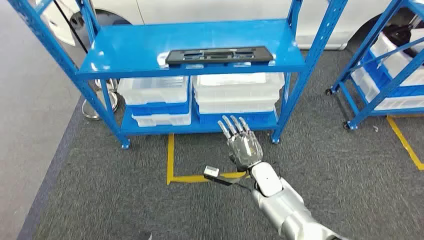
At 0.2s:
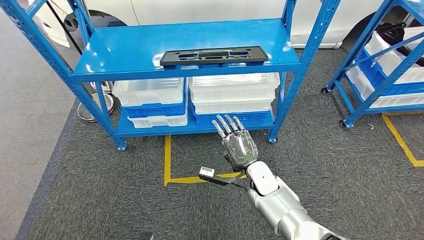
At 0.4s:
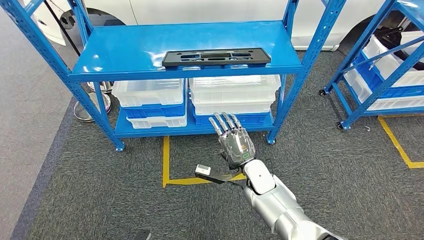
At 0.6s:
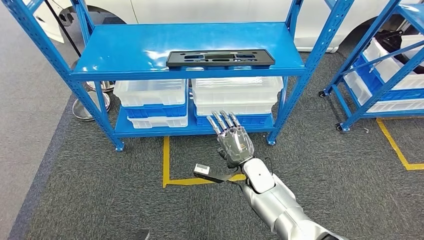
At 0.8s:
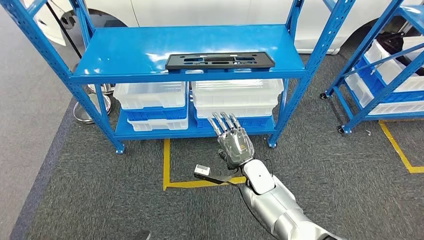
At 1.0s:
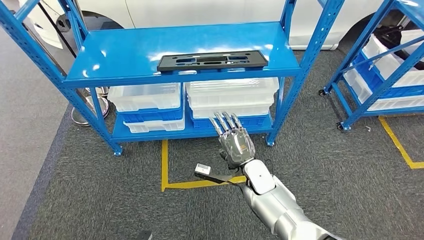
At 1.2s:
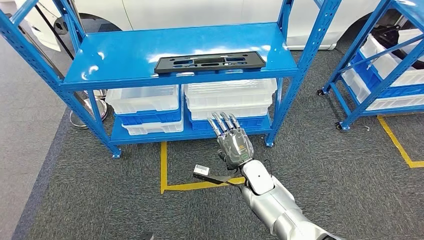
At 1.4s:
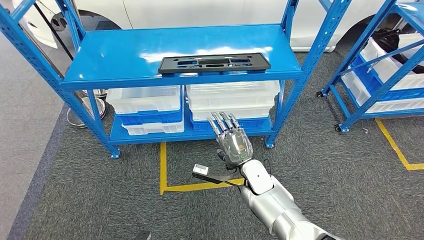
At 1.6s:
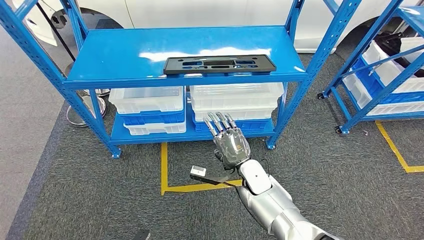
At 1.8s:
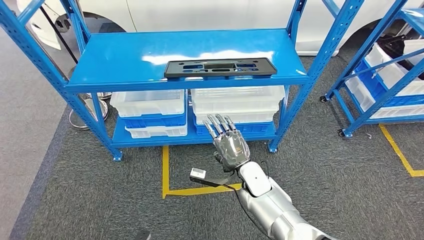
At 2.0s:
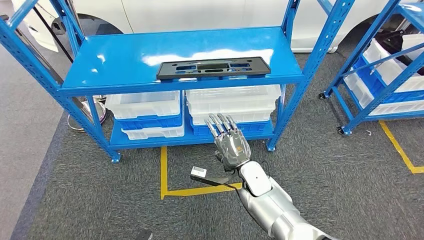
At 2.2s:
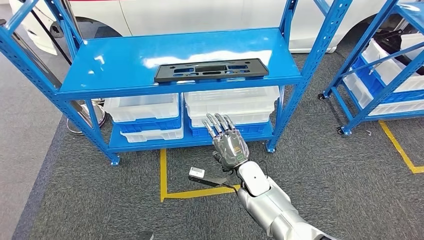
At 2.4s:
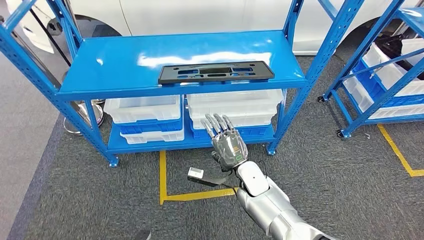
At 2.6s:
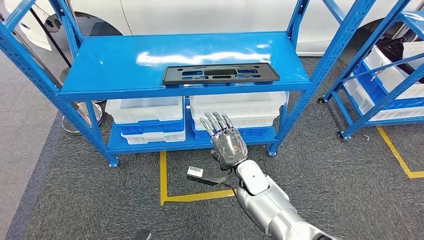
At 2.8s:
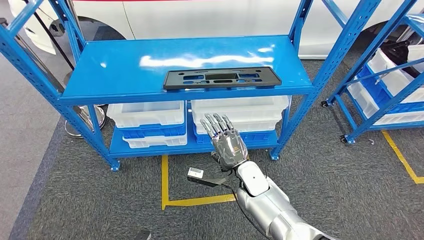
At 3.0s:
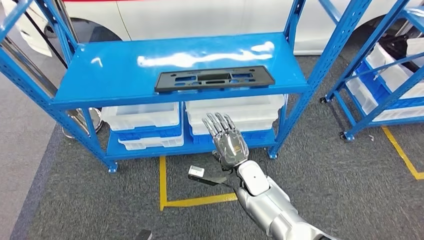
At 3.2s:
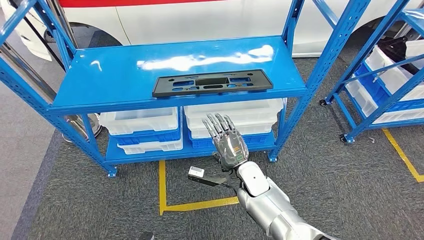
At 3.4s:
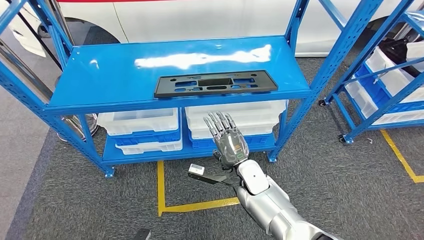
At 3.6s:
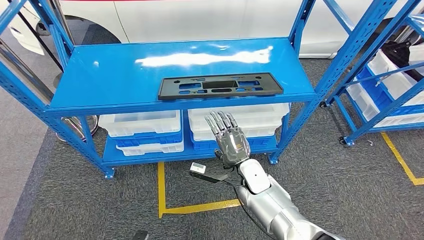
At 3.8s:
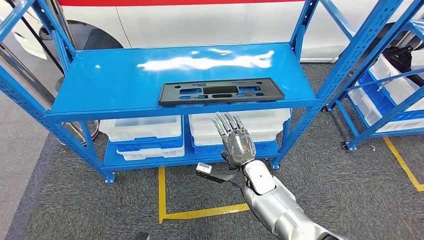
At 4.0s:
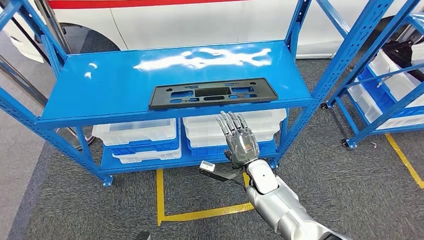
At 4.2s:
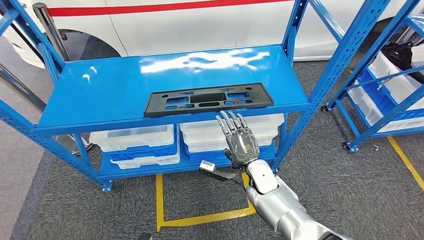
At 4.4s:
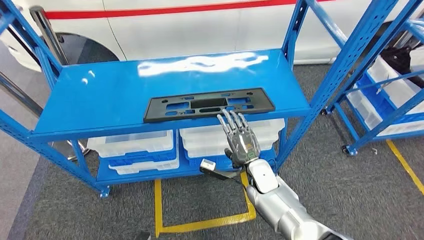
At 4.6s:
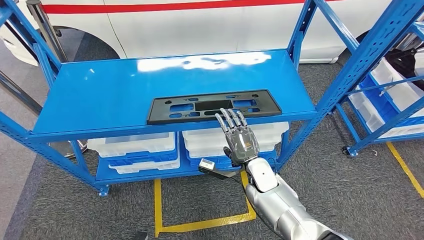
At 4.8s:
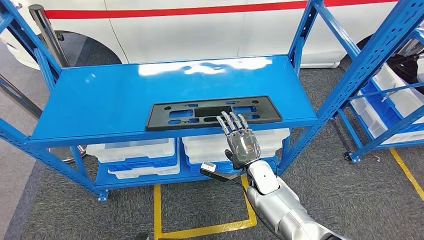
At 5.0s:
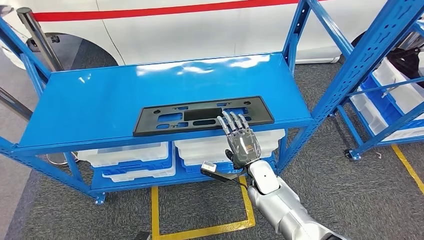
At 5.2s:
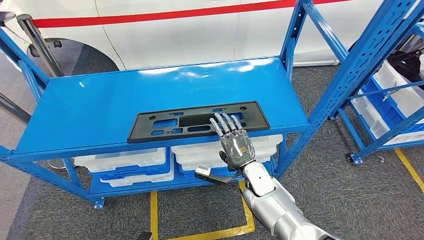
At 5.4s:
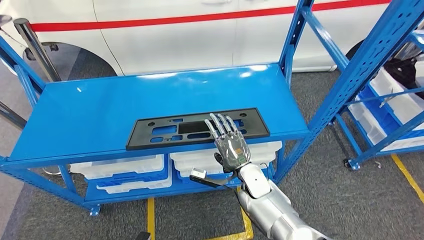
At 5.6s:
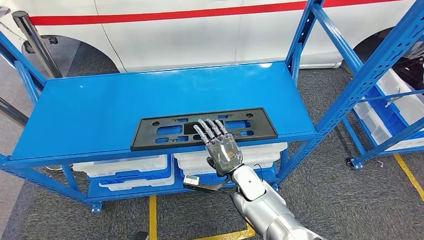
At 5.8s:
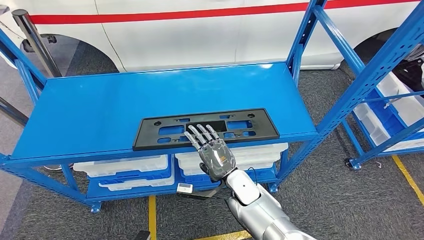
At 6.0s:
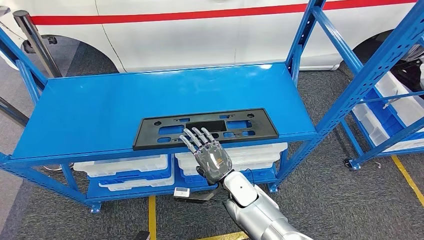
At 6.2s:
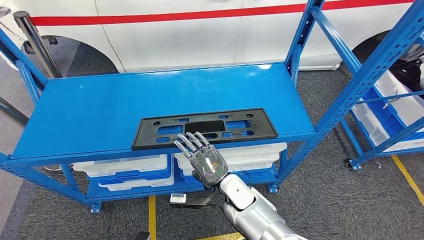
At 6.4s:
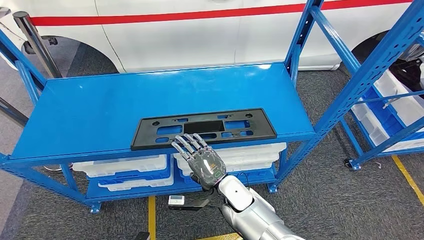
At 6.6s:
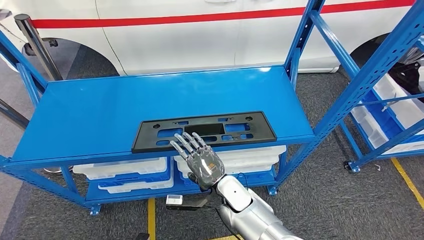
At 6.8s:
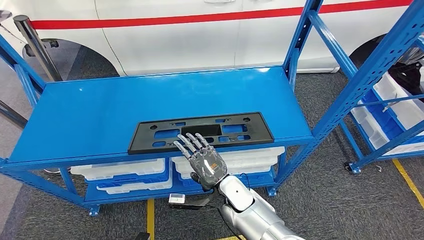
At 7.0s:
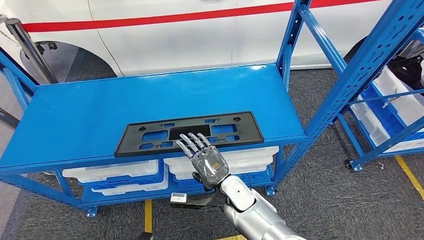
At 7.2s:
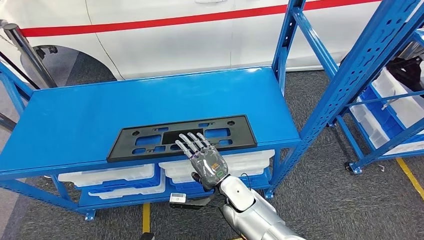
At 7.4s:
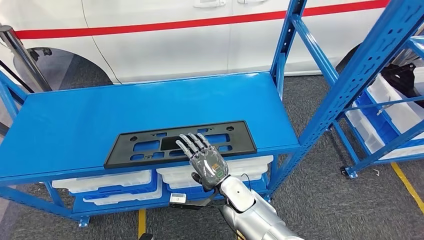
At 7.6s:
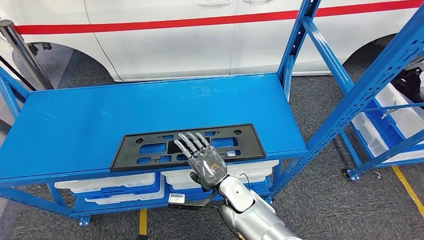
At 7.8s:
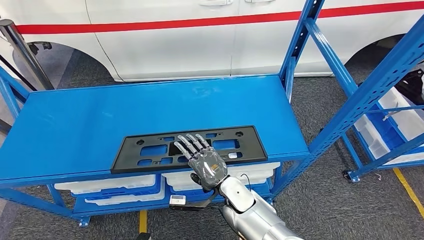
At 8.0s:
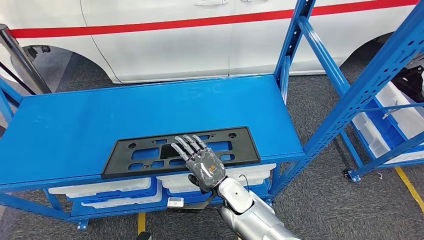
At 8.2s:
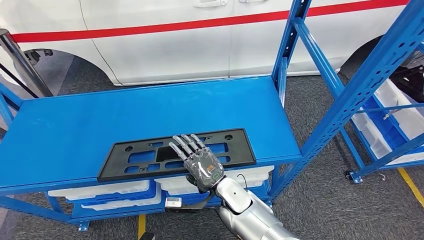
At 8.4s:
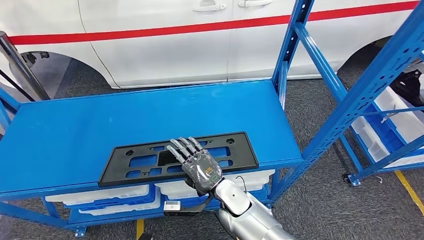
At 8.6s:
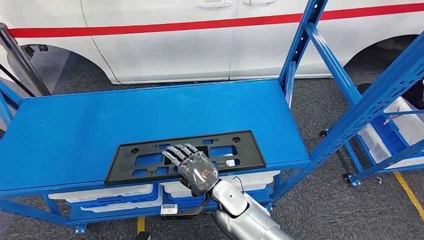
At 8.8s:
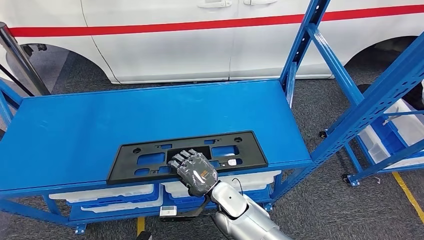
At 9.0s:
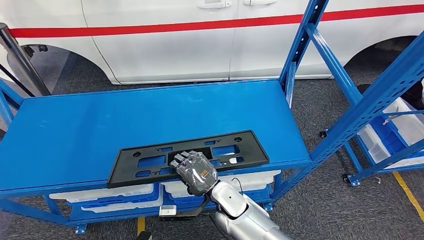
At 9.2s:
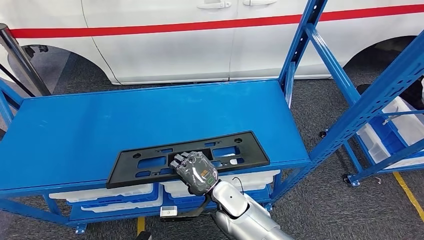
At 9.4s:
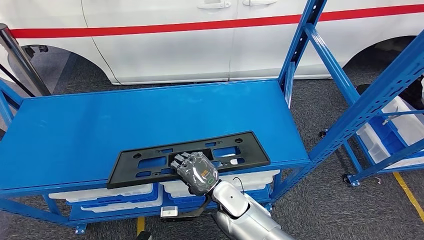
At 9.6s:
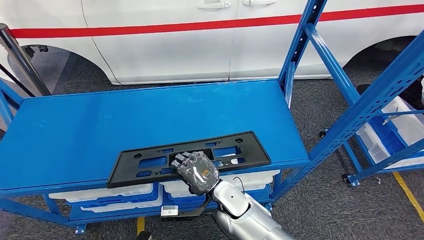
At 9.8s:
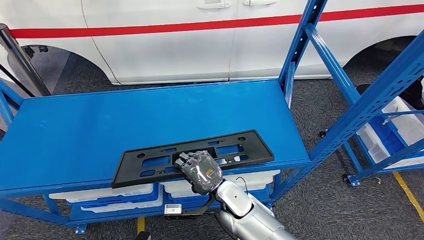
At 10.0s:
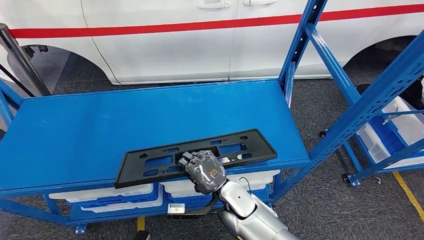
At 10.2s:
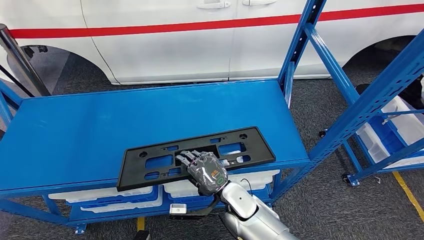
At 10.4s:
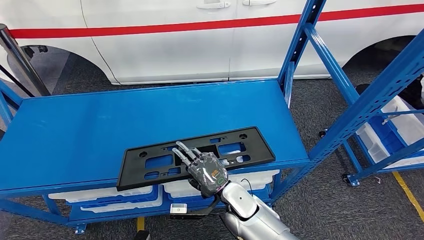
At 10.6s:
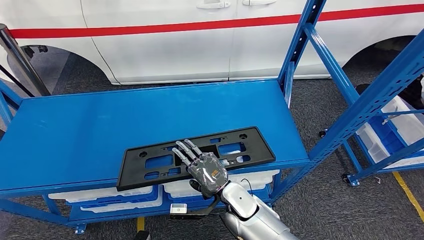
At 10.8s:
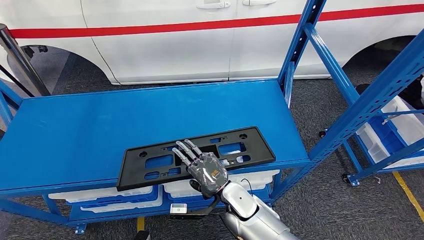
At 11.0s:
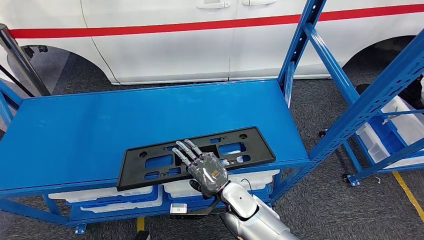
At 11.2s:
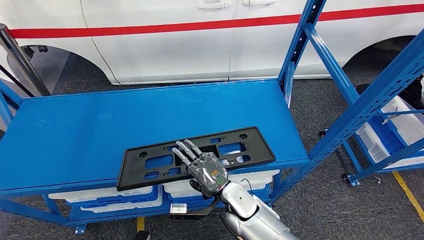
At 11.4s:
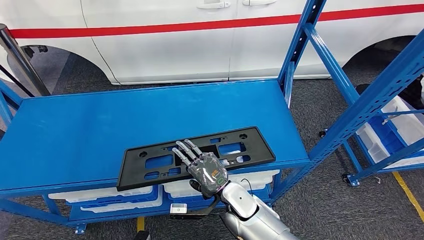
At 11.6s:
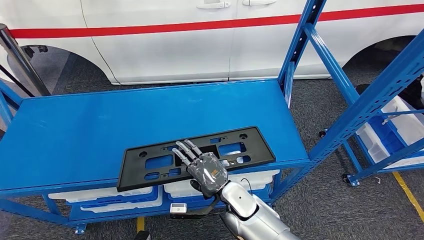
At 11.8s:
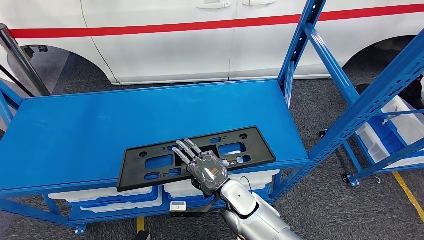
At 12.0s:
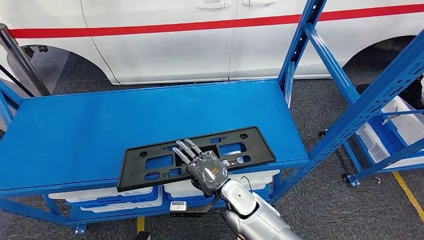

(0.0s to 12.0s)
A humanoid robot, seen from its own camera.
9.0s - 10.4s: The hands move only a little.
10.4s - 12.0s: Both hands stay about where they are.

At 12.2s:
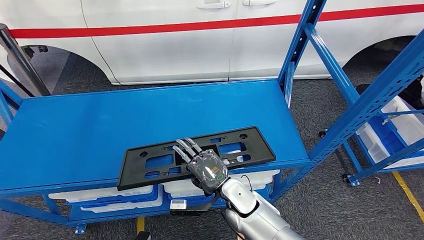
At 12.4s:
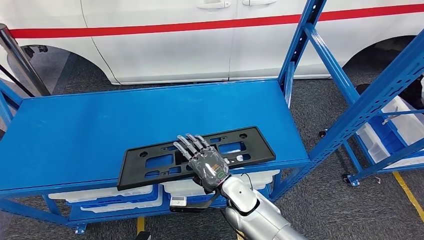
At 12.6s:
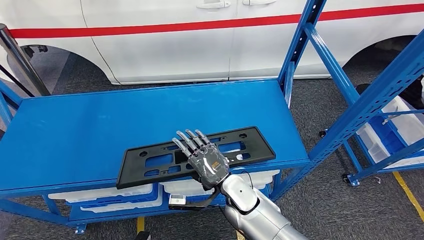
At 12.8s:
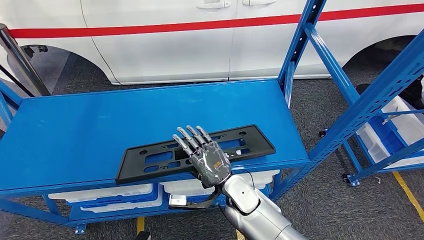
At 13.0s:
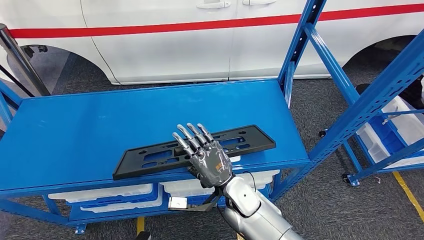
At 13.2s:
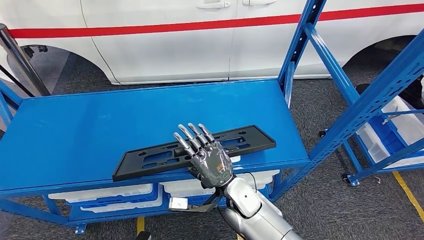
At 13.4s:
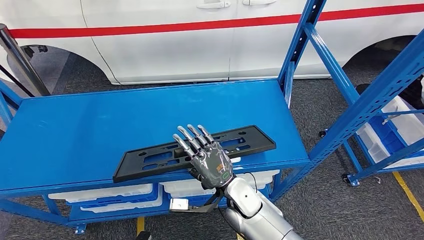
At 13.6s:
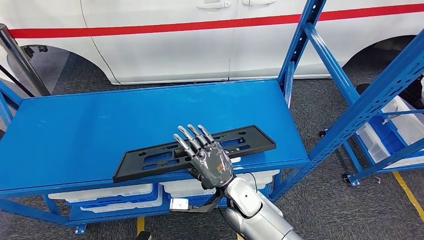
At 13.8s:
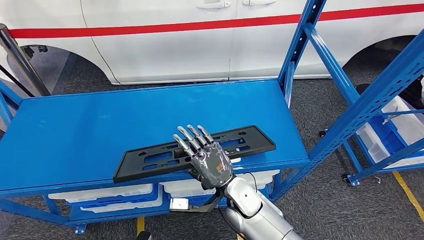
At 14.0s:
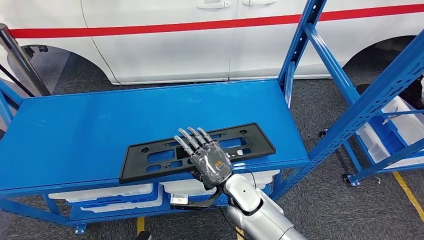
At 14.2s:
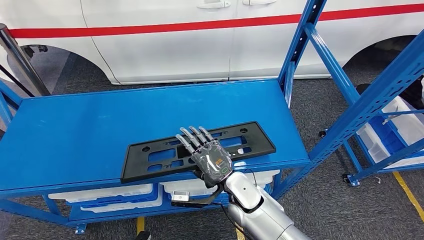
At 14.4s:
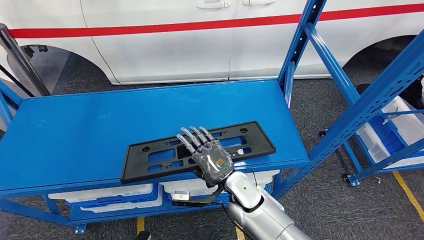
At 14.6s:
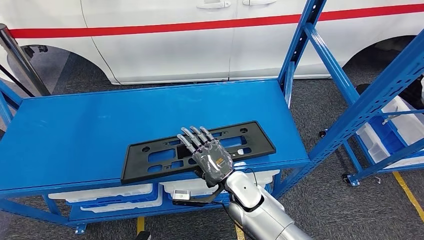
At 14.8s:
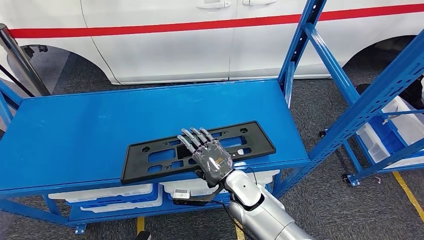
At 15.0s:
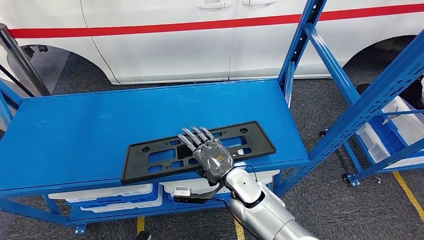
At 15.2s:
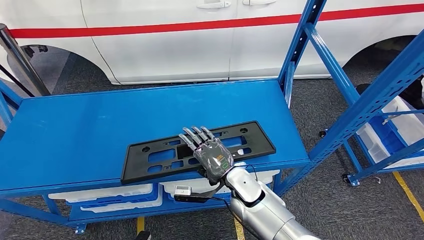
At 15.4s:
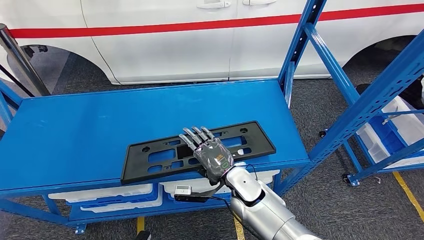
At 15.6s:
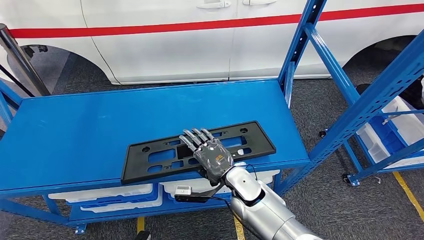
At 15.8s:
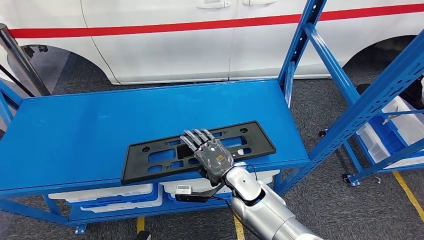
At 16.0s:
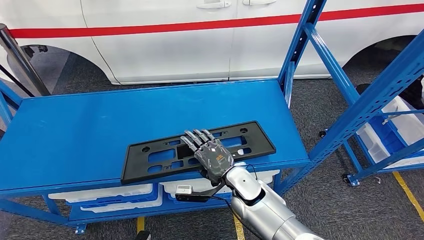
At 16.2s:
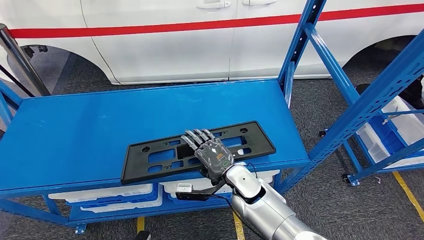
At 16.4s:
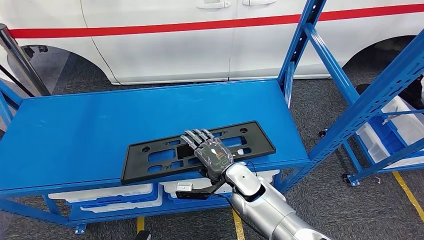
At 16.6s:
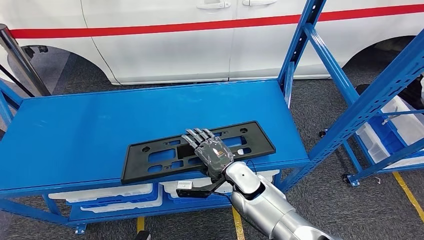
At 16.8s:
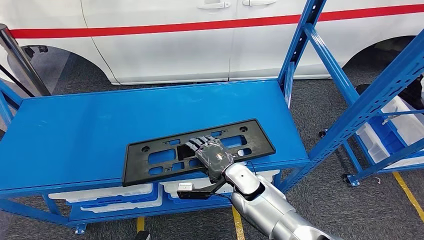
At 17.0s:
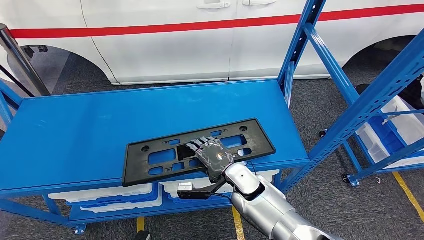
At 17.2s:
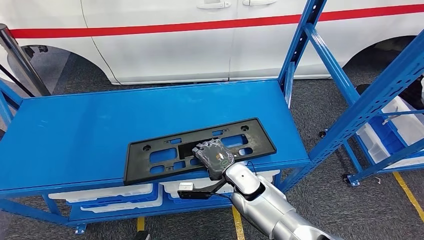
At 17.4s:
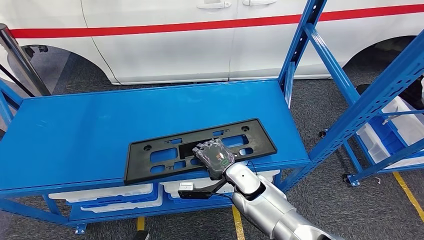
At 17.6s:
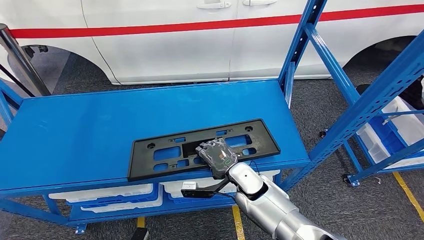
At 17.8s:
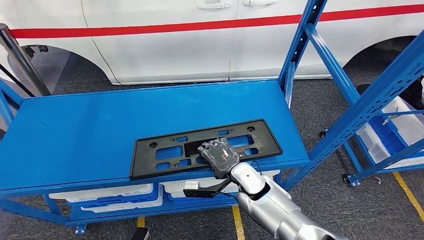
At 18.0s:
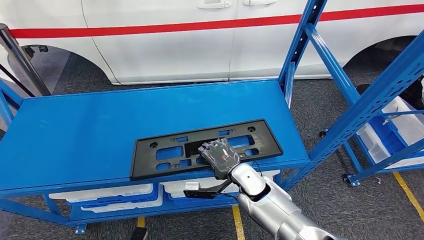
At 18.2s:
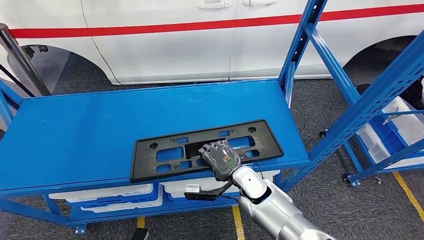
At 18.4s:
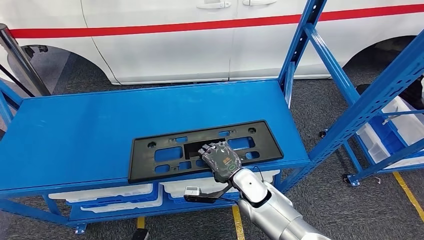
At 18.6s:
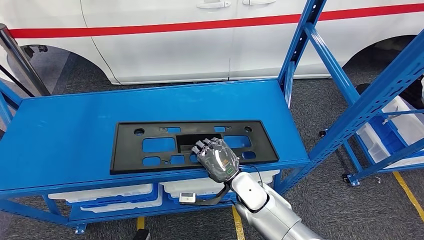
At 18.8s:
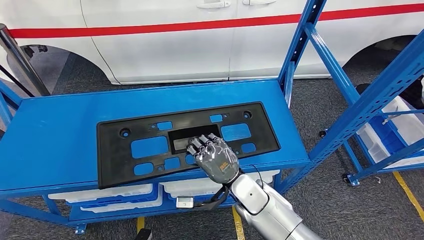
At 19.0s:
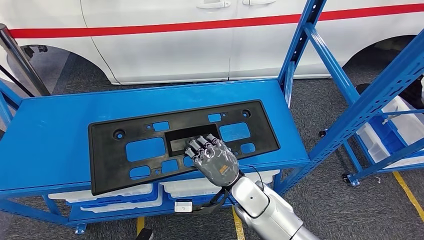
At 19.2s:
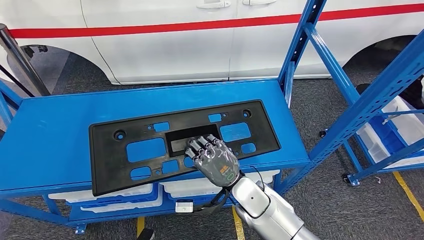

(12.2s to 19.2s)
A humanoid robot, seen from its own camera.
Step, 12.2s - 18.6s: Pick up the large material from the shelf.
12.2s - 17.8s: The hands stay close to where they were, moving slightly.
17.8s - 19.2s: The right hand ends up approximately 5 cm from where it was.
